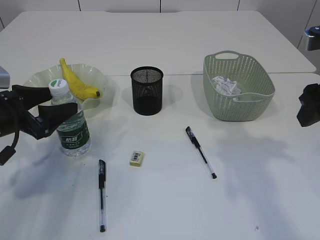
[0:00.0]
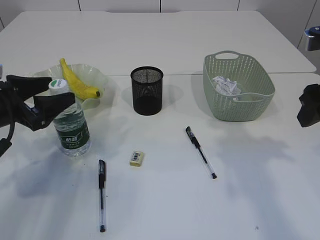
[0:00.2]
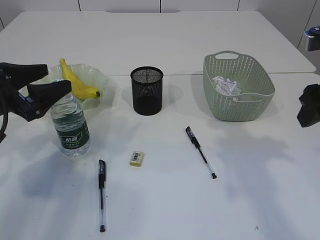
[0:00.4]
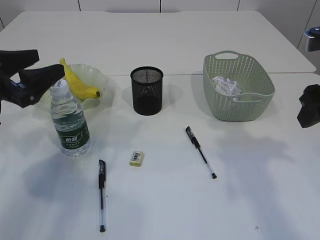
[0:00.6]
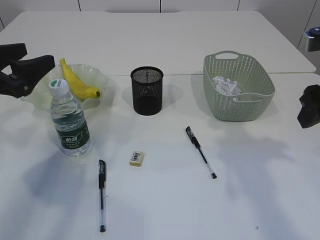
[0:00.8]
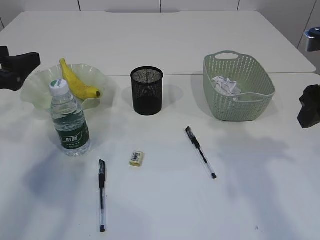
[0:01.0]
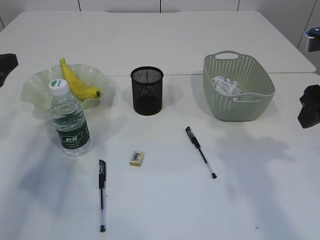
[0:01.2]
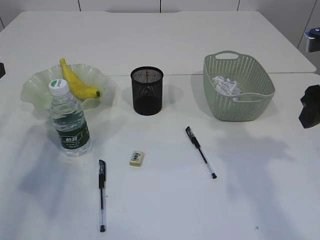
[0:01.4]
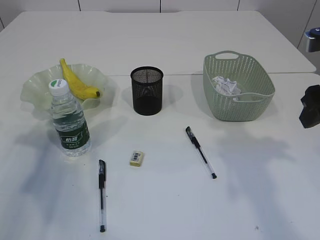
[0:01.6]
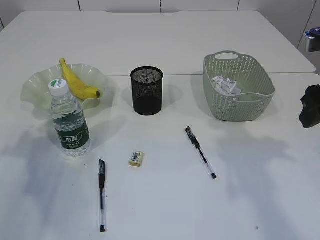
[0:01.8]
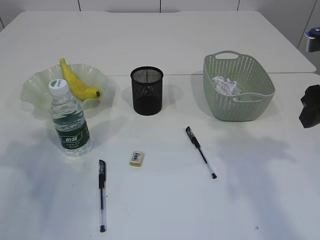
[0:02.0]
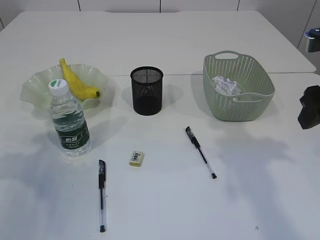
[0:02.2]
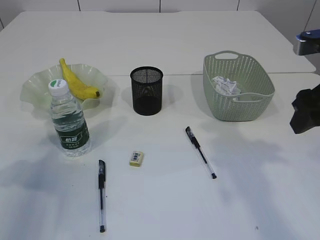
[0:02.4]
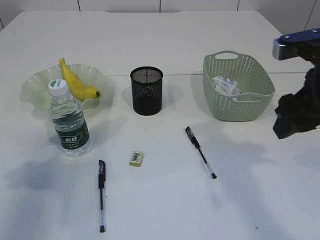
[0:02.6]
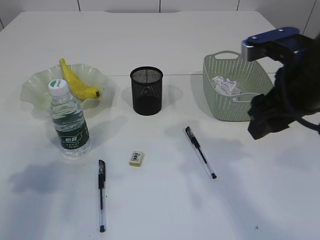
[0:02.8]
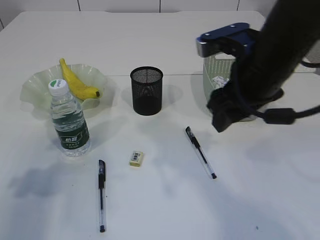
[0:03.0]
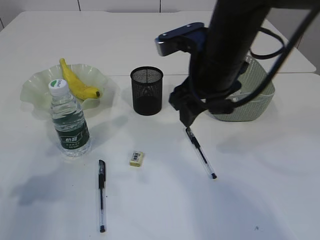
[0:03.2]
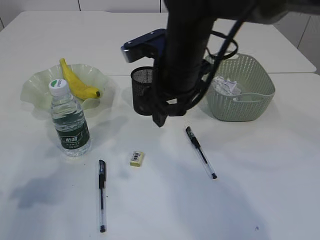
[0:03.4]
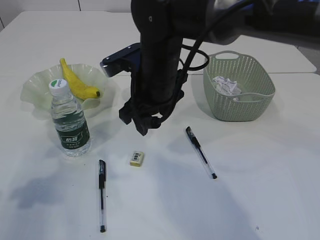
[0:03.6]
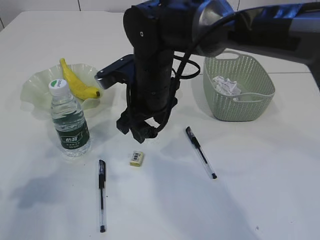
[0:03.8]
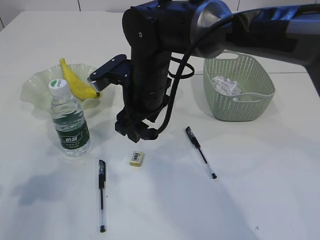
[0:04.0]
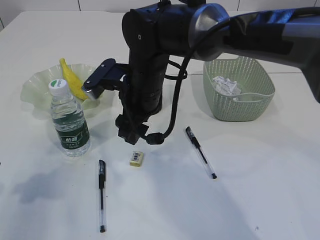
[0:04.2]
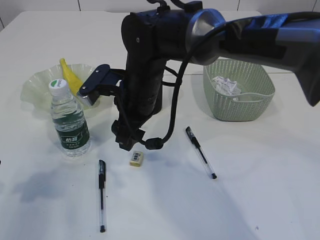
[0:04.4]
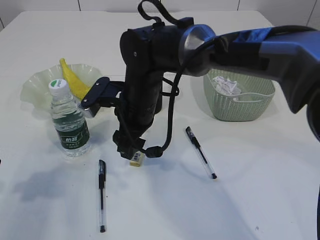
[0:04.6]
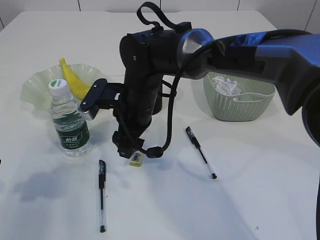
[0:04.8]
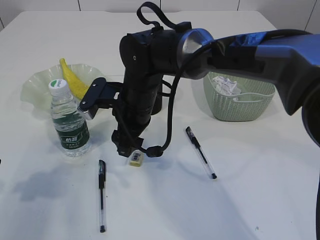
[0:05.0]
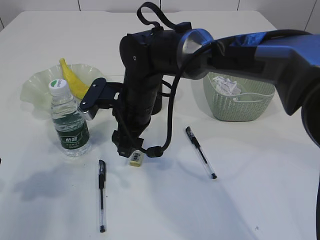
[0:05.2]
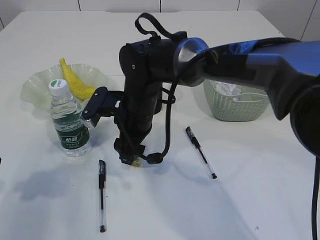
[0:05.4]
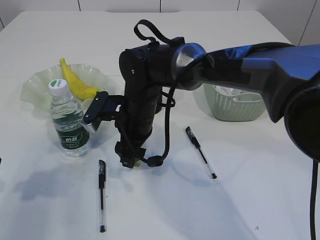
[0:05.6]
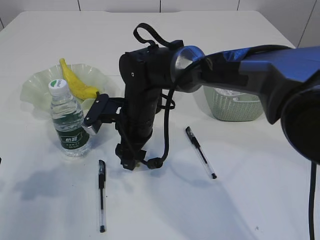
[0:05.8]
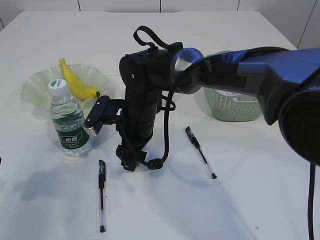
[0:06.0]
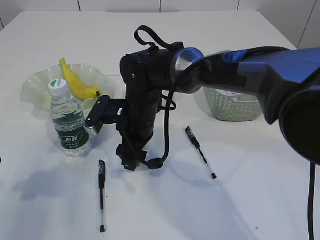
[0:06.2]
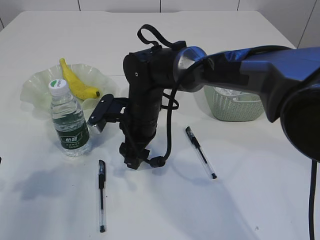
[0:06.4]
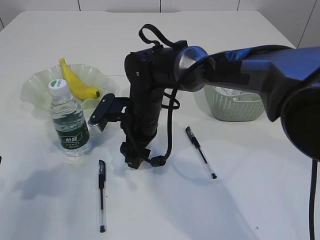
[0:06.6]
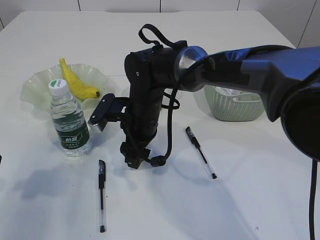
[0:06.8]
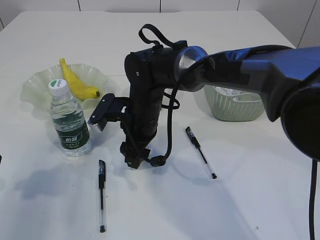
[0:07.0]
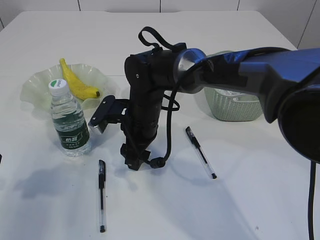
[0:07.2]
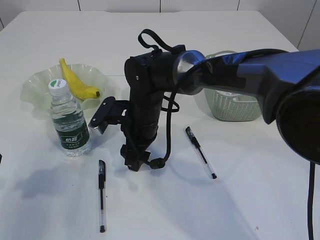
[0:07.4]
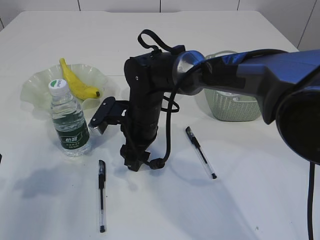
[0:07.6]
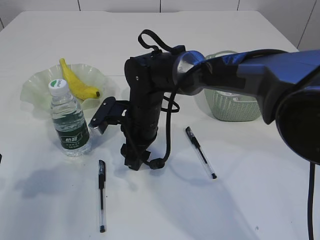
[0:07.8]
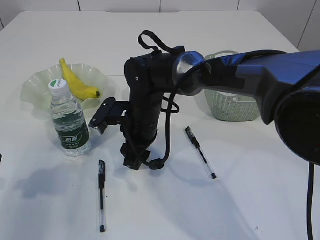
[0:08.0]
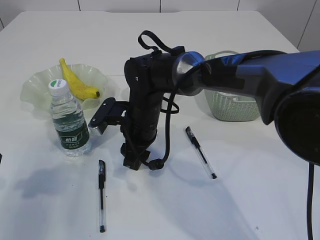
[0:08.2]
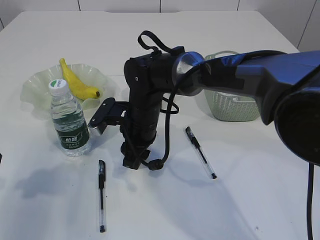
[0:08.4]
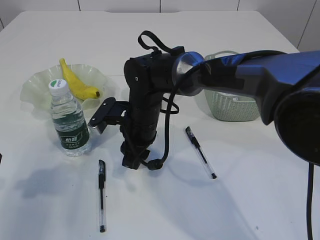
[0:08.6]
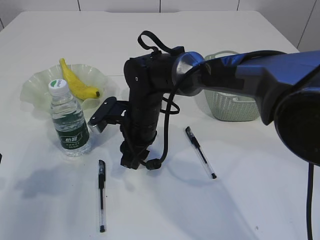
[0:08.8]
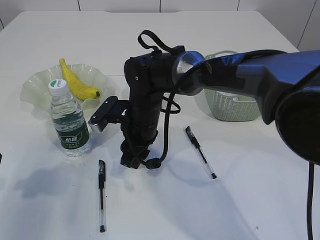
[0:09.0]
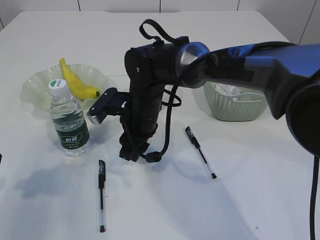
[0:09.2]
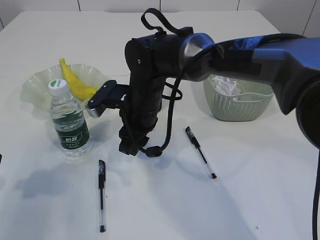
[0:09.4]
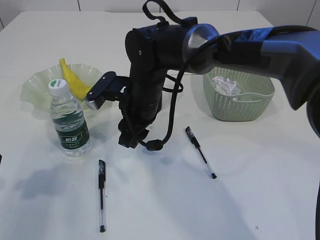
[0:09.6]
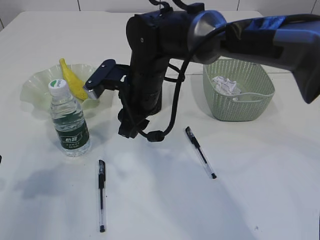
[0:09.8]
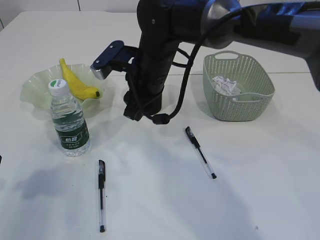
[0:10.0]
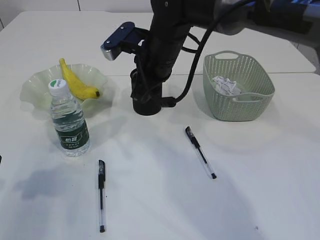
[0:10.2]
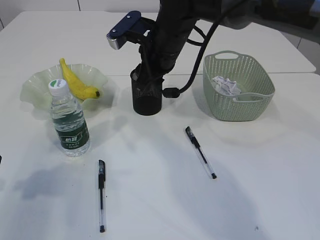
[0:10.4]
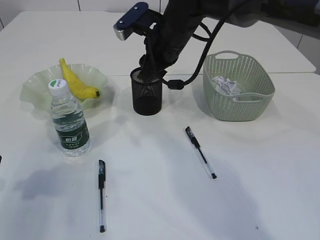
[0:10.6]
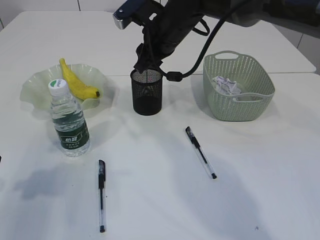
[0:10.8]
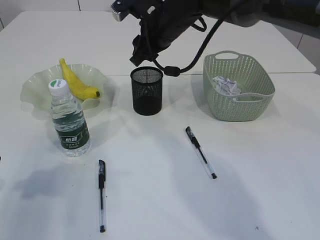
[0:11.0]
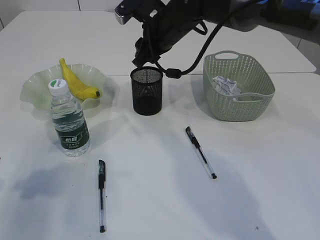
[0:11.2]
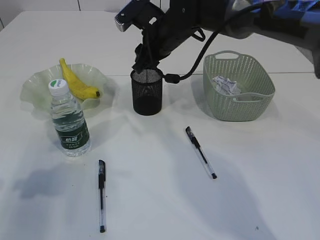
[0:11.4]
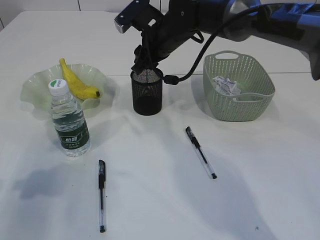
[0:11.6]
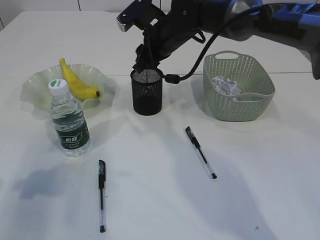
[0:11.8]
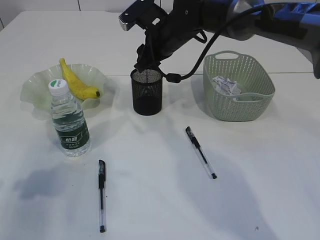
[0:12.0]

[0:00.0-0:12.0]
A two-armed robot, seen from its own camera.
Step, 0:00.8 to 0:09.6: Pick up the eraser.
0:00.0 to 0:01.6: The left gripper heads upward and to the left, covering some 10 cm.
0:01.6 to 0:03.0: The left gripper shifts some 5 cm backward. The right gripper moves to the left, some 15 cm.
0:03.0 to 0:04.4: The right gripper travels to the left, downward and forward by roughly 20 cm.
0:04.4 to 0:06.0: The right gripper goes some 5 cm downward.
0:06.0 to 0:07.6: Neither gripper changes place.
0:07.6 to 0:09.0: The grippers make only small movements.
0:09.0 to 0:10.4: The right gripper moves upward, some 10 cm.
0:10.4 to 0:12.0: The right gripper shifts by approximately 5 cm.

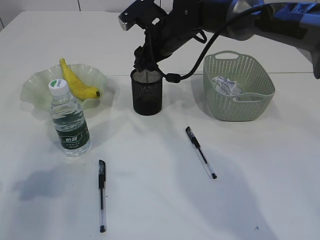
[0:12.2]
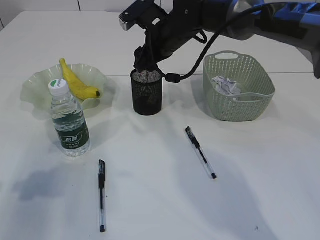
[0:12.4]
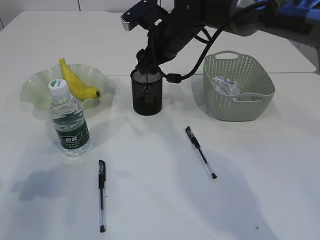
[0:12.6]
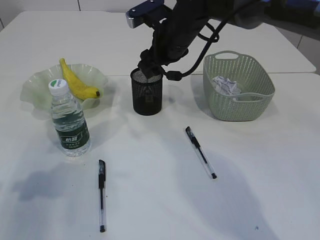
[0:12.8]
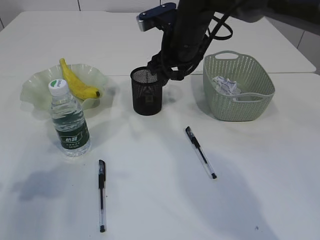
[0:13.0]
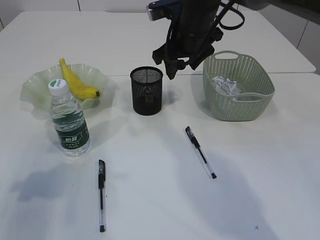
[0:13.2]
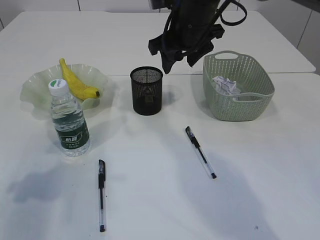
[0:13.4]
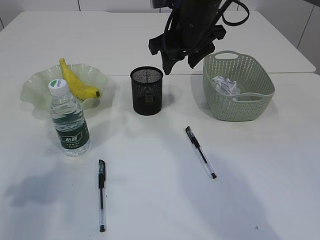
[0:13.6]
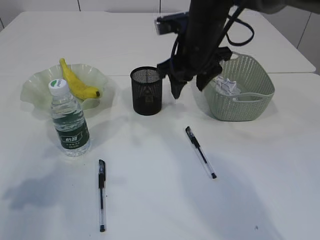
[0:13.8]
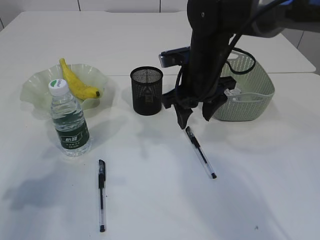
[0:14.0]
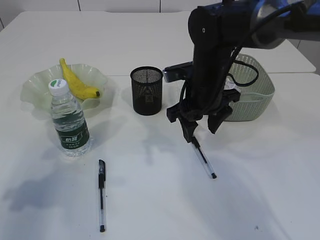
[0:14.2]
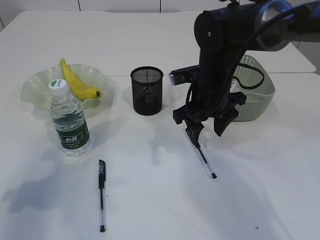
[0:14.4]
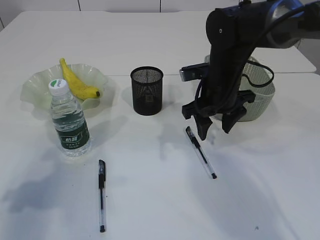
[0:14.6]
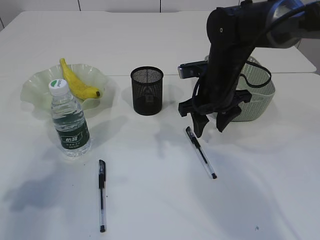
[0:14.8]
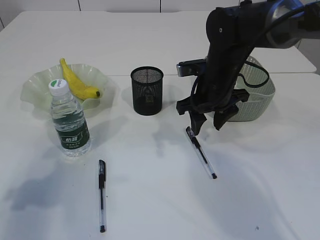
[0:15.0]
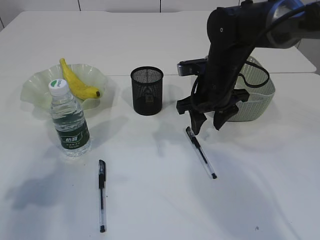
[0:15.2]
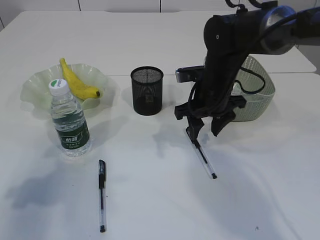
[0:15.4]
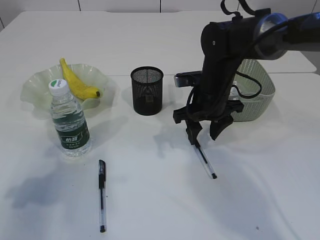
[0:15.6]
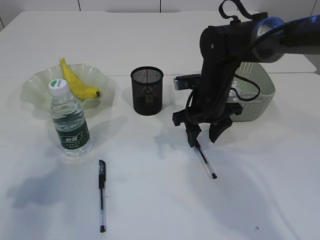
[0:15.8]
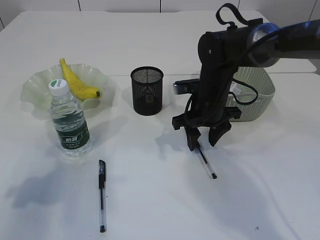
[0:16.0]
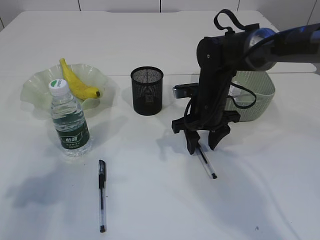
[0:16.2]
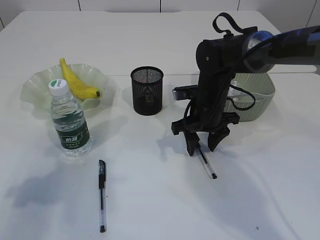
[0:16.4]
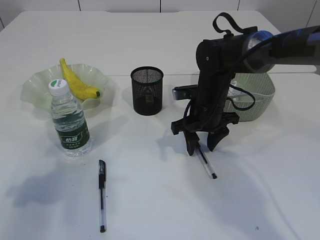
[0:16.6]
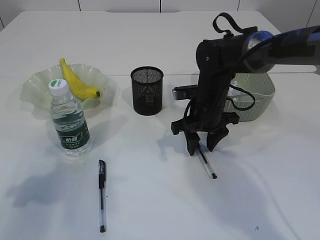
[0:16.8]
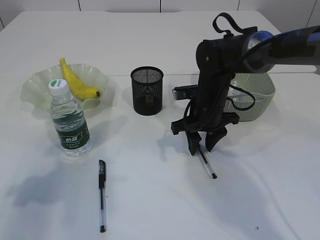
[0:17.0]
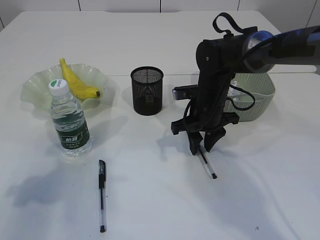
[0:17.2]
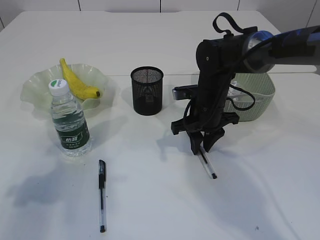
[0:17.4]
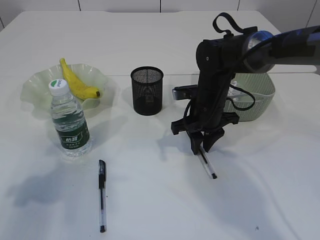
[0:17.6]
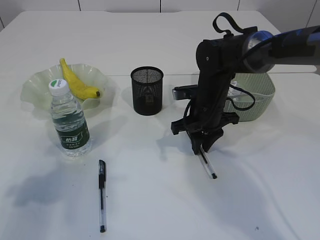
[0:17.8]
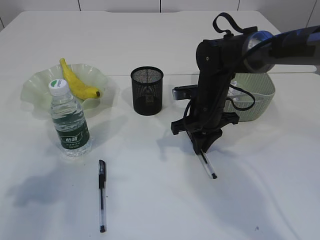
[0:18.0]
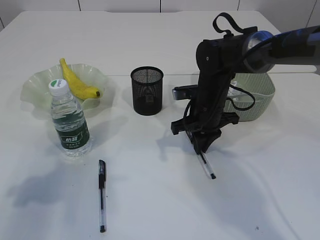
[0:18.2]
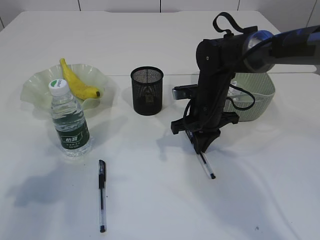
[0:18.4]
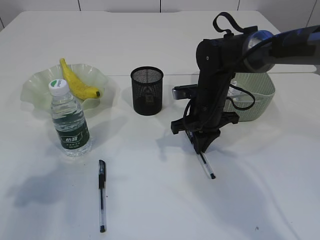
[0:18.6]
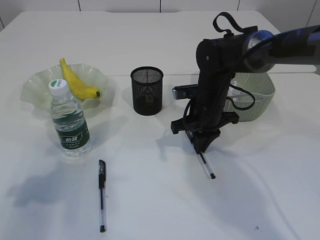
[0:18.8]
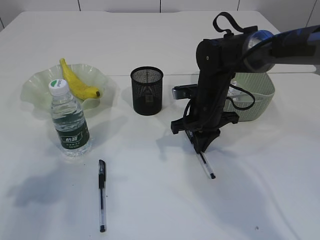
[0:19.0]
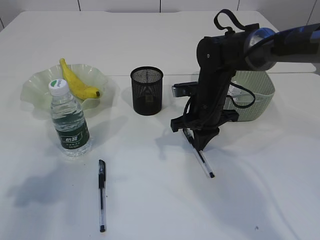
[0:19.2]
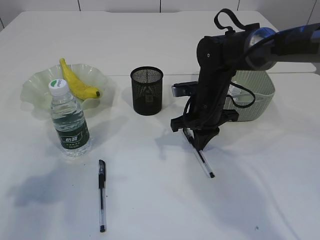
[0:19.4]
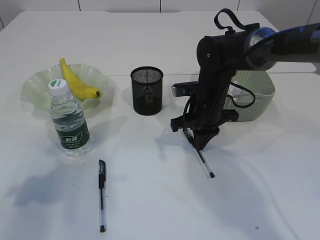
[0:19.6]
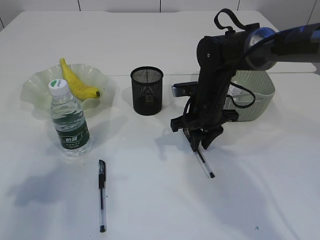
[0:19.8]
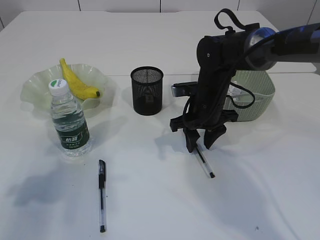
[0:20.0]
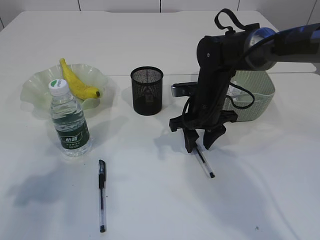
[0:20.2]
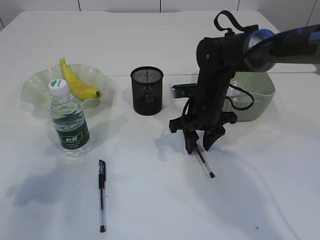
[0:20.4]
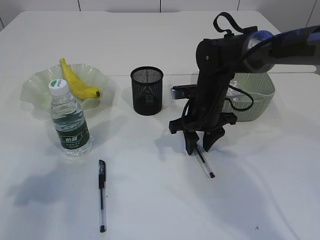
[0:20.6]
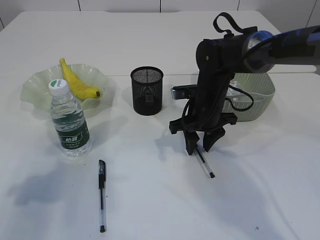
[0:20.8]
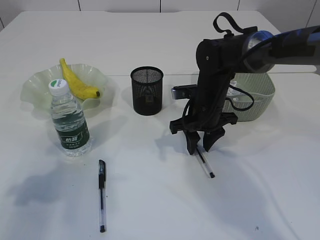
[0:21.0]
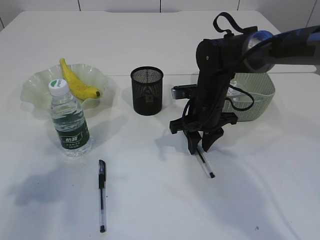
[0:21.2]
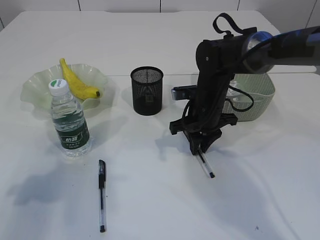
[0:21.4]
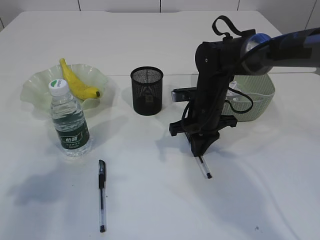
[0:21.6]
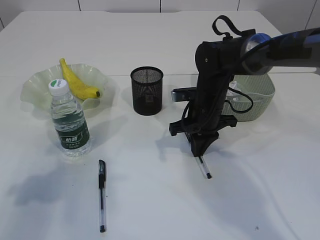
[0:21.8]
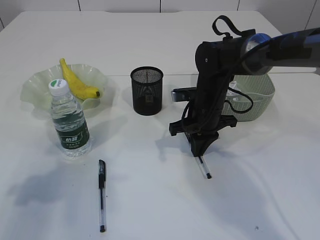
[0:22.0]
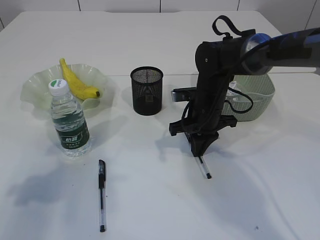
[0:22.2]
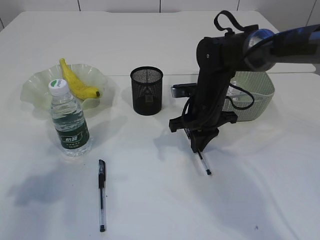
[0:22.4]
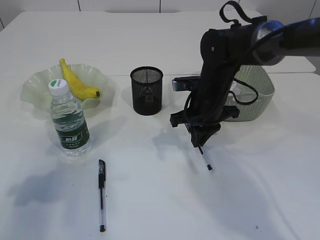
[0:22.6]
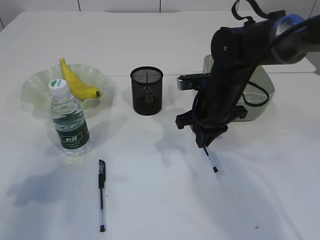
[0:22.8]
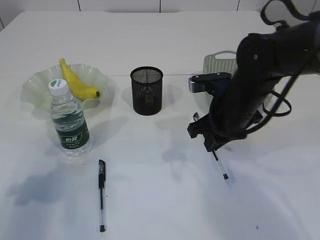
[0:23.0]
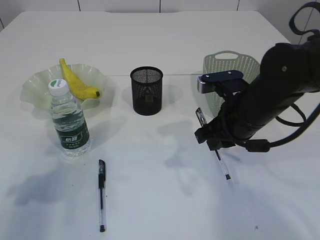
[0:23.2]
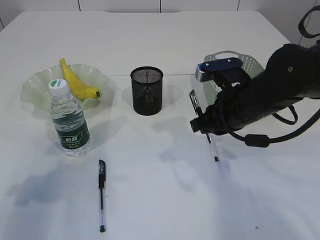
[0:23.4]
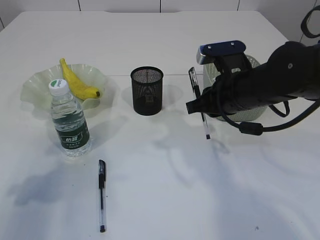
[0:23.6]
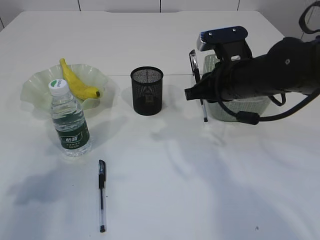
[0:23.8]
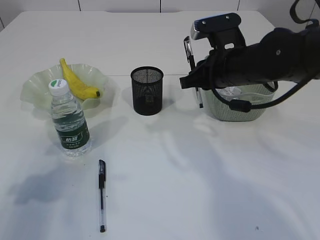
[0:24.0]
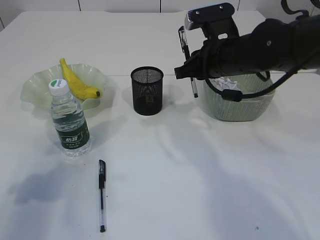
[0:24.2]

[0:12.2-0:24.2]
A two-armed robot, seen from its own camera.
Step, 0:13.2 to 0:23.0: Pick up the pen with right arm.
0:12.2 to 0:13.8: The right gripper shifts approximately 5 cm backward.
0:13.8 to 0:15.2: The right gripper travels downward by about 5 cm.
0:15.2 to 0:16.6: The right gripper travels downward by some 5 cm.
0:16.6 to 0:18.2: The right gripper closes its fingers.
0:18.2 to 0:21.2: The two grippers keep their place.
0:21.2 to 0:22.6: The right gripper closes.
0:22.6 to 0:24.2: The right gripper moves upward, some 10 cm, and goes backward and returns, approximately 10 cm each way.
